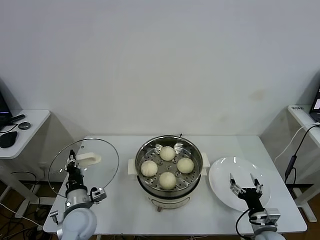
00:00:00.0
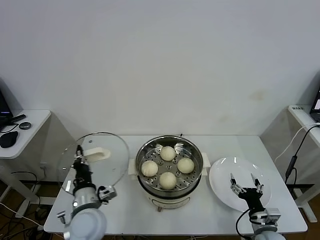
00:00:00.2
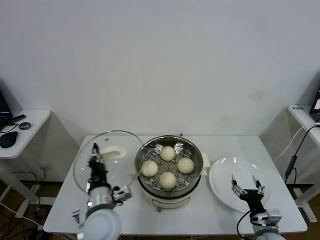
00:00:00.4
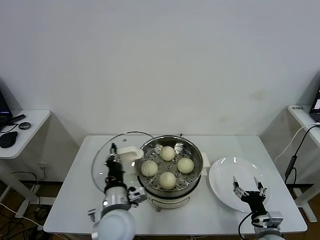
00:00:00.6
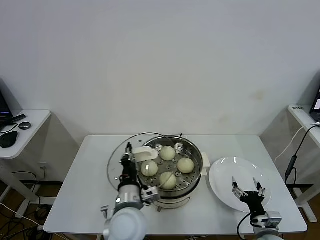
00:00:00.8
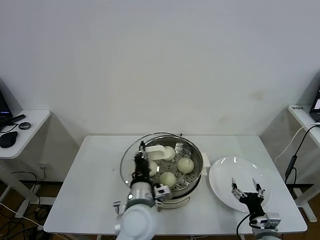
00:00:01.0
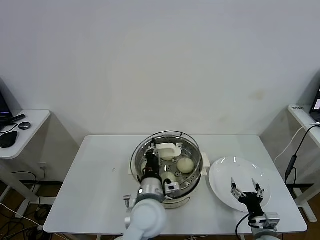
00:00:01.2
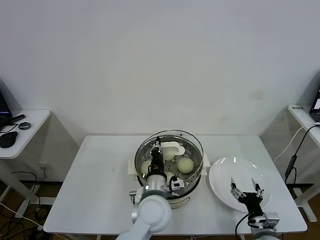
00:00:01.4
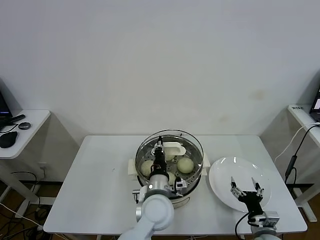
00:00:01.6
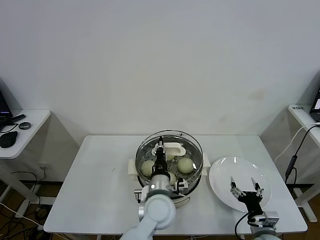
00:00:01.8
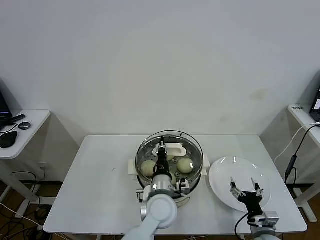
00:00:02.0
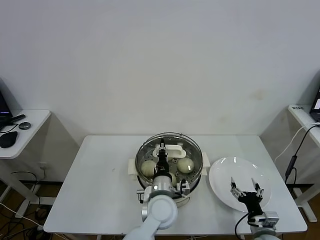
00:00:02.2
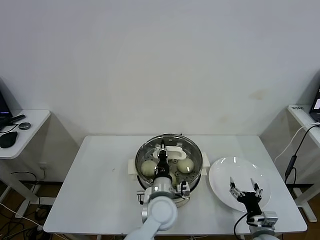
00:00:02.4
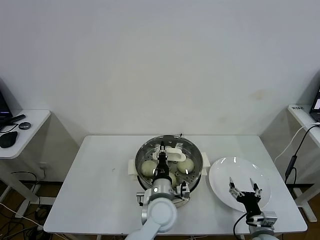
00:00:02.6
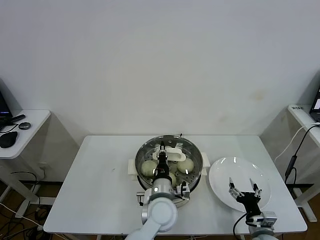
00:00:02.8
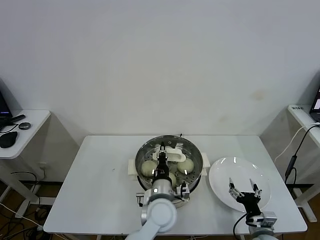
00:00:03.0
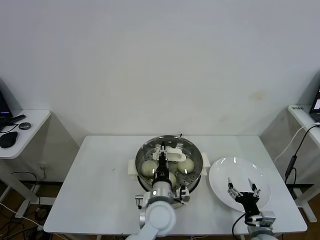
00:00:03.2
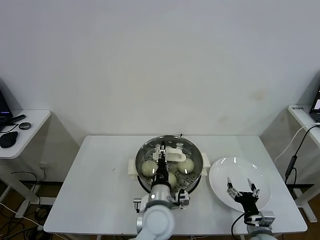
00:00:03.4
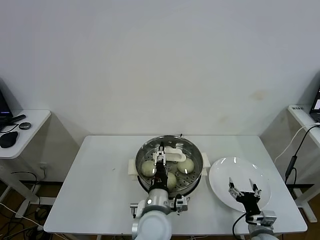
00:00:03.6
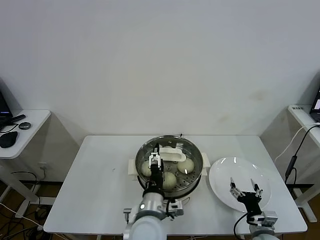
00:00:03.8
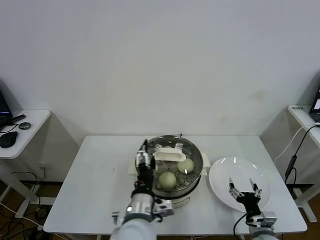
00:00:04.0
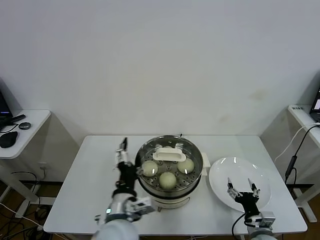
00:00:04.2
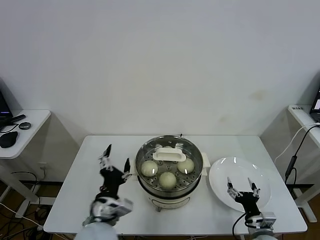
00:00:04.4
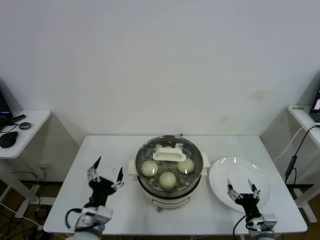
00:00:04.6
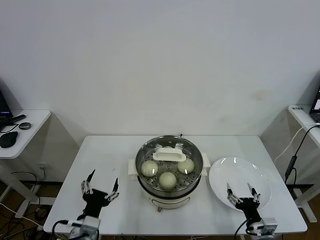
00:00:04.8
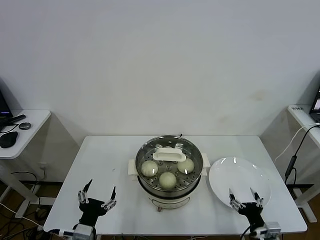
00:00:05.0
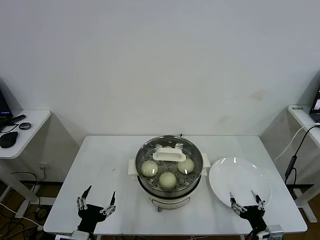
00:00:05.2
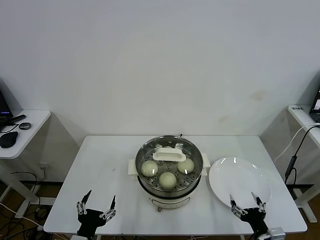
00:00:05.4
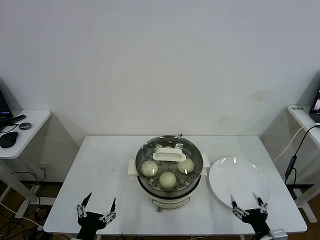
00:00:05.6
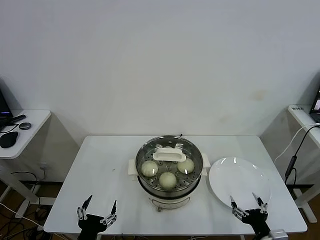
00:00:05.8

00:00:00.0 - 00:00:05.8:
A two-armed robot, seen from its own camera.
Task of the whole recording: take steamed baozi put them in steamer.
Step, 00:00:00.0 - 00:00:03.8: Place the pot lid on the steamer with left gripper.
00:00:00.0 - 00:00:01.4: The left gripper is displaced to the right by approximately 25 cm.
00:00:01.4 - 00:00:02.8: The left gripper ends up about 5 cm from where it was.
00:00:02.8 - 00:00:04.4: The left gripper goes some 20 cm to the left, backward and upward, and opens up.
00:00:04.4 - 00:00:05.8: The right gripper heads backward and upward, covering about 10 cm, while the left gripper heads backward, to the left and downward, covering approximately 15 cm.
